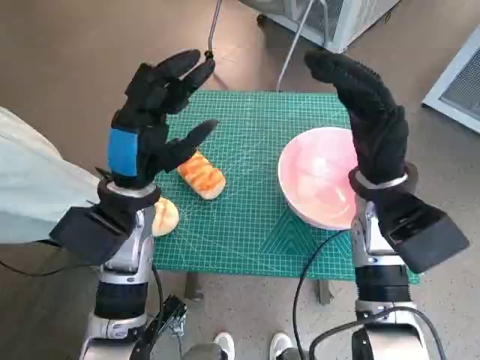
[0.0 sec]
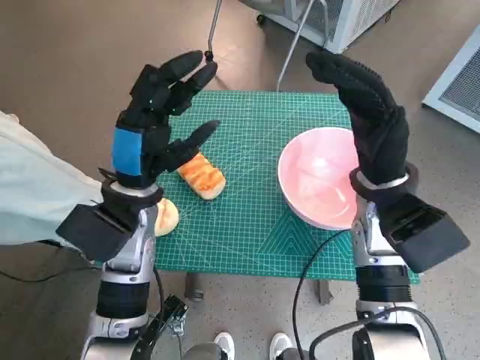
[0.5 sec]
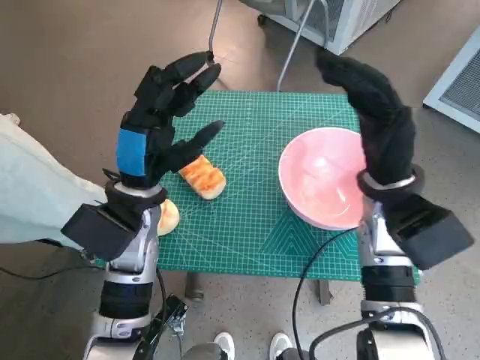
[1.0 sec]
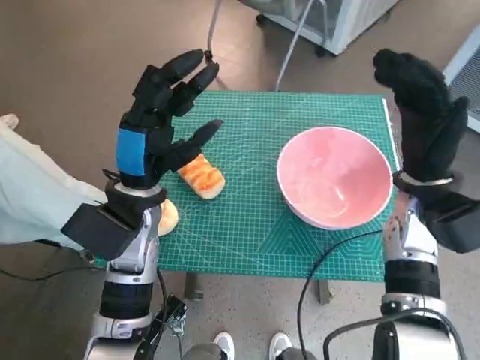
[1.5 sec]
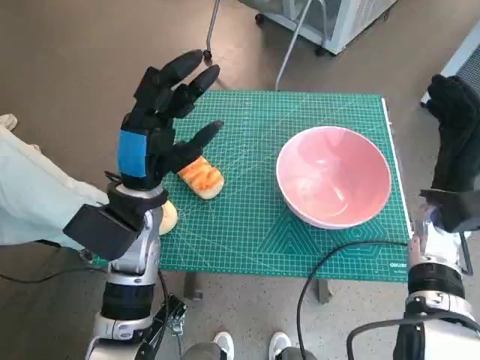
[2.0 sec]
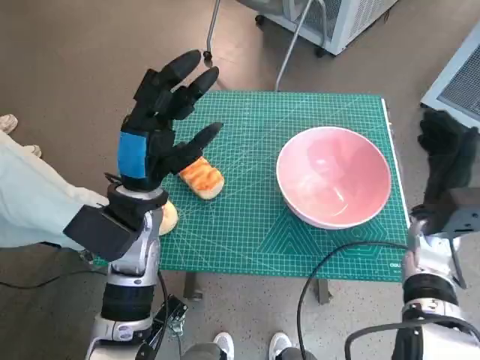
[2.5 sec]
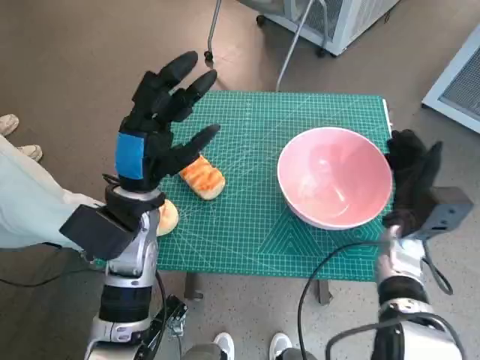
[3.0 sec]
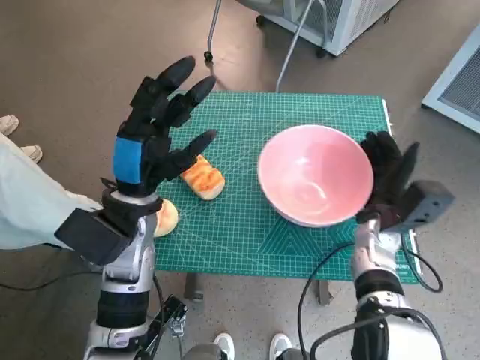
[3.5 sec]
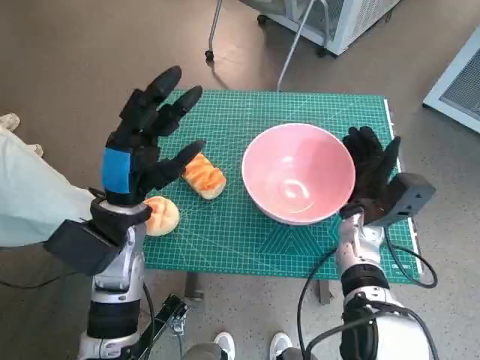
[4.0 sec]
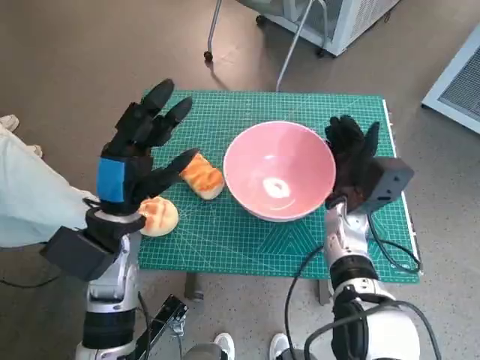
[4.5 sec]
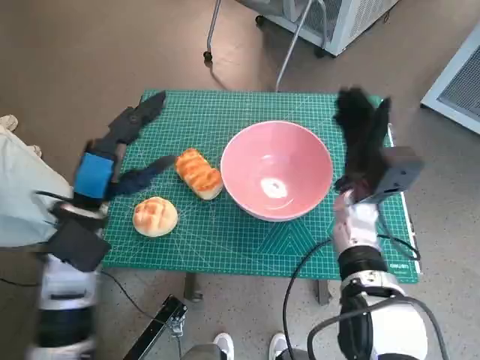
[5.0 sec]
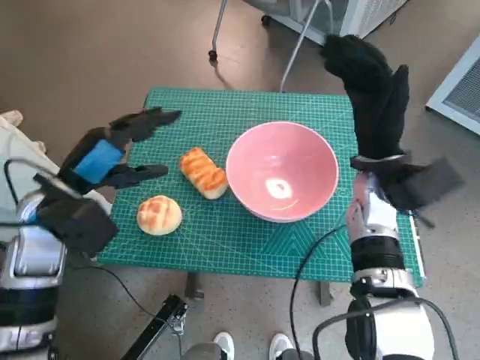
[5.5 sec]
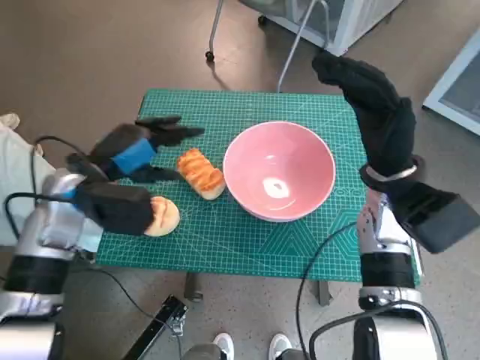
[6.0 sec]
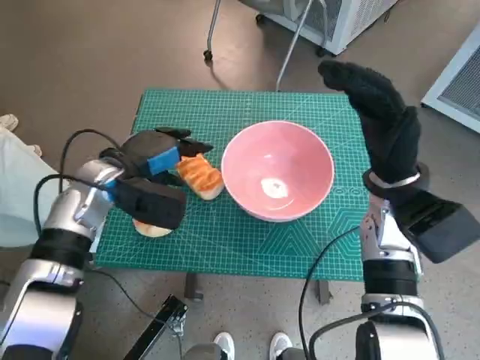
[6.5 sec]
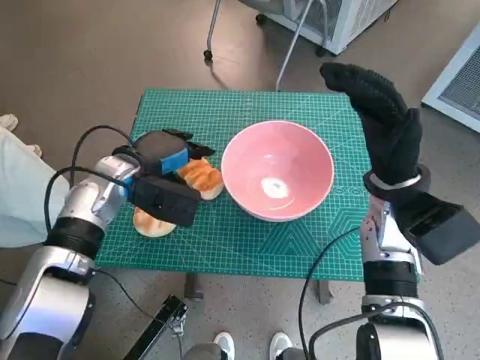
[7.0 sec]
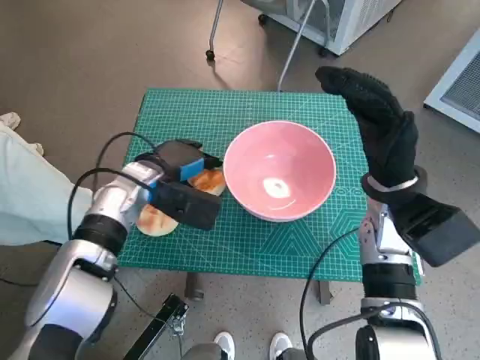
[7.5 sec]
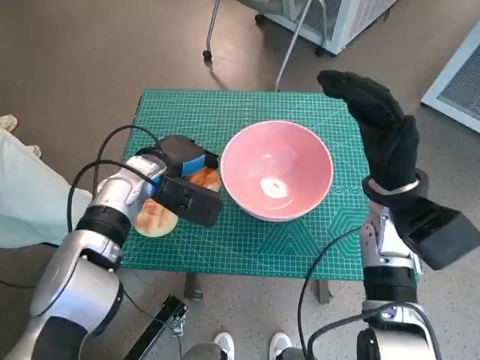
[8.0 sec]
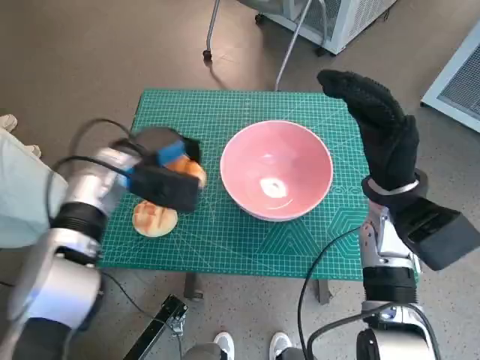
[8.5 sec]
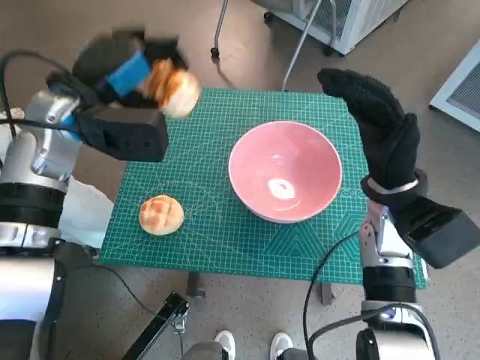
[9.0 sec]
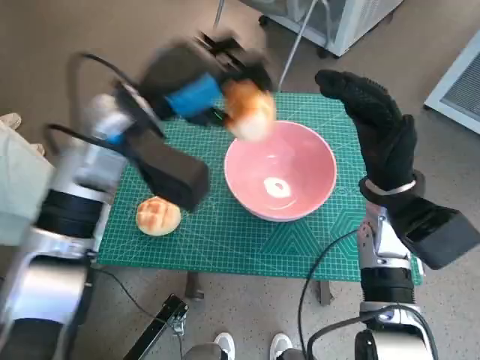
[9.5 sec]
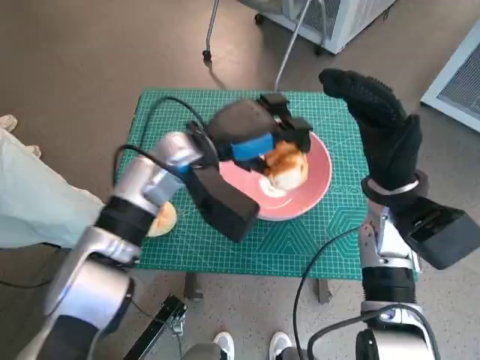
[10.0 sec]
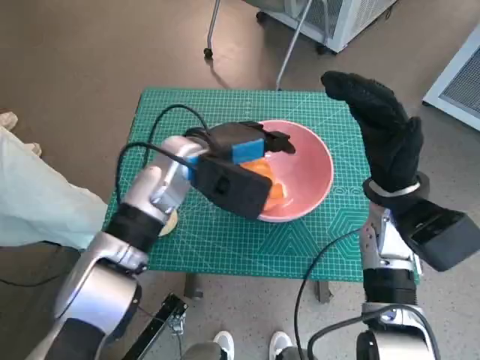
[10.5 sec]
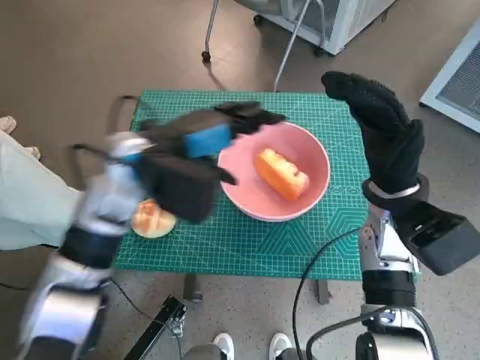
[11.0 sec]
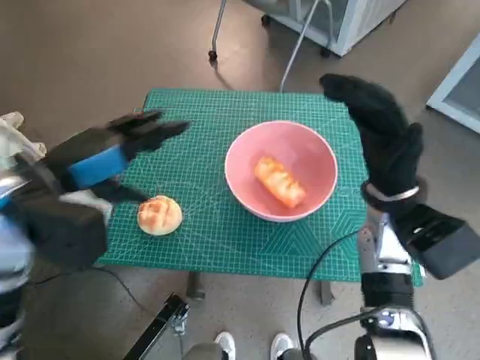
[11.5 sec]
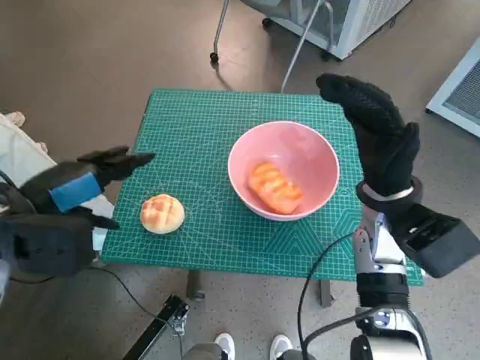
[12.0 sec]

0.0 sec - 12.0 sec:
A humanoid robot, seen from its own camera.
Task of the whole recording: Push the bowl to the center of the table and put the bread into the bowl.
Step, 0.0 sec - 4.5 sec: Move the pink bowl to the center of table with right hand.
Step, 5.0 sec - 7.5 sec: Grasp the long bread with left hand.
Step, 8.0 sec - 10.5 sec: Place the long bread in pink bowl with left hand.
2.0 sec - 4.0 sec: The right hand heads to the left and downward, covering roughly 10 cm.
4.0 sec - 6.0 sec: The right hand shifts some 10 cm upward; the left hand travels to the left by roughly 5 cm.
6.0 sec - 8.0 sec: The left hand heads to the right, forward and downward, covering approximately 10 cm.
8.0 sec - 10.0 sec: The left hand moves upward and to the right, some 10 cm.
10.0 sec - 12.0 sec: The left hand shifts some 20 cm to the left and backward.

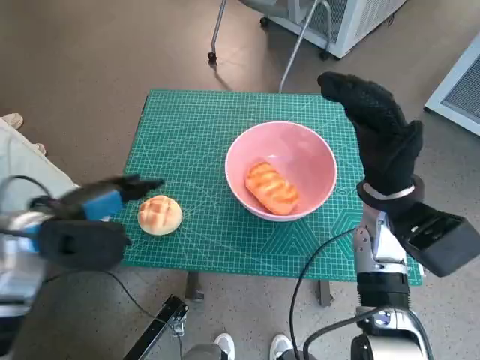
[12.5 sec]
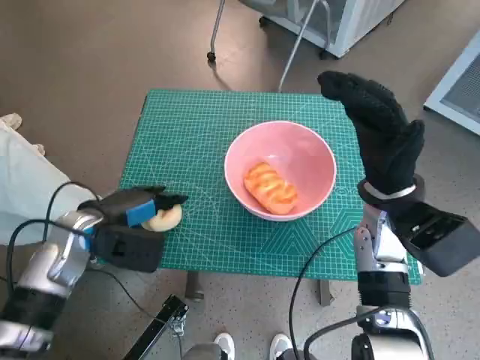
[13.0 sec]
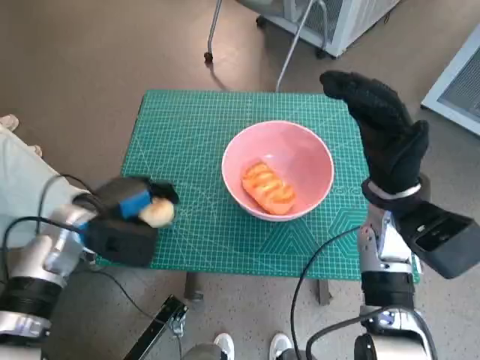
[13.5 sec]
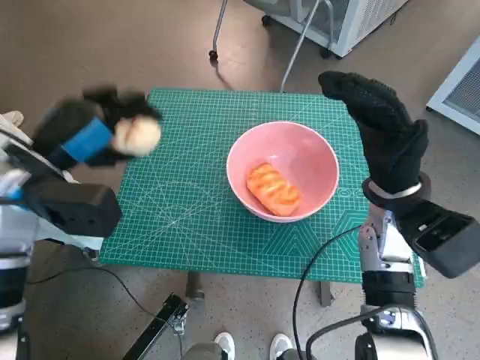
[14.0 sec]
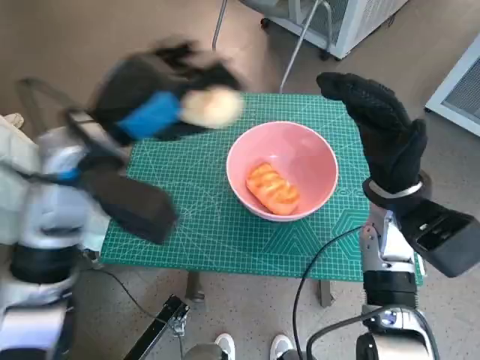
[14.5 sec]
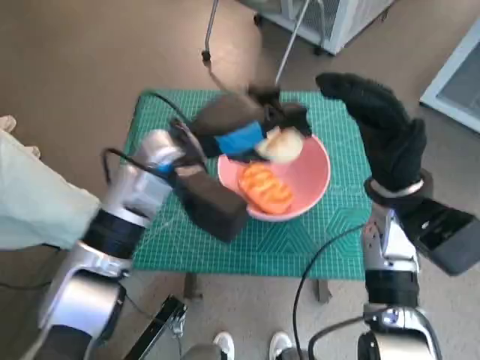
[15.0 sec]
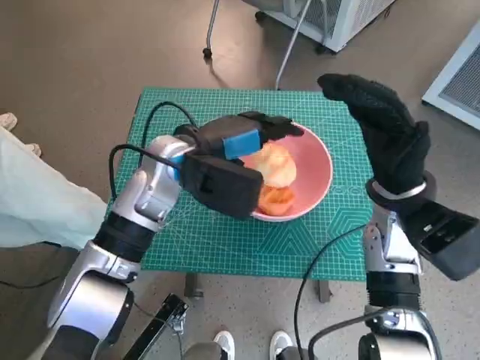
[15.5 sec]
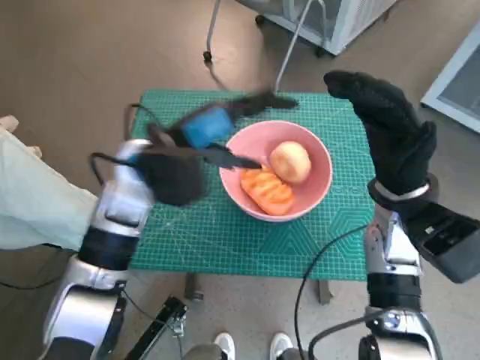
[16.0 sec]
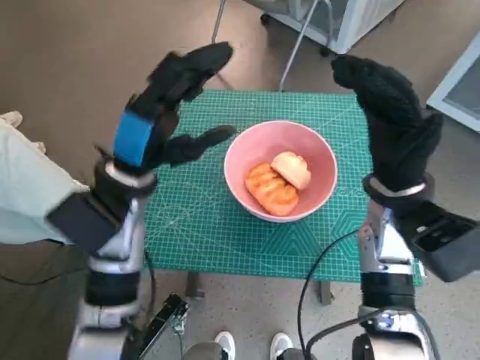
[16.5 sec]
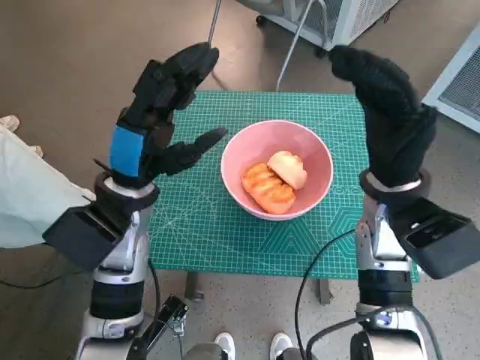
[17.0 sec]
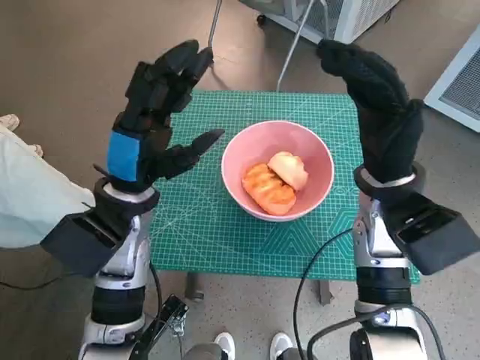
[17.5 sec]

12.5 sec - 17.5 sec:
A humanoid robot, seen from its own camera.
Task of the whole recording: Push the bowl to the center of the table and put the bread into the bowl.
Step, 13.5 sec - 15.5 sec: Place the round bread in pink bowl with left hand.
12.5 sec - 15.0 sec: The left hand moves to the right and forward, approximately 20 cm.
15.0 sec - 17.5 sec: The left hand goes about 5 cm backward and to the left.
